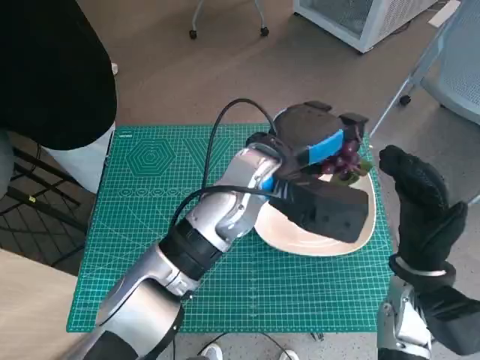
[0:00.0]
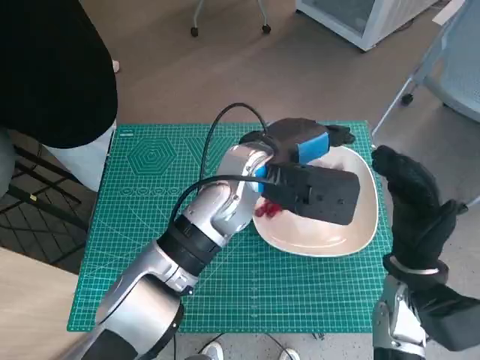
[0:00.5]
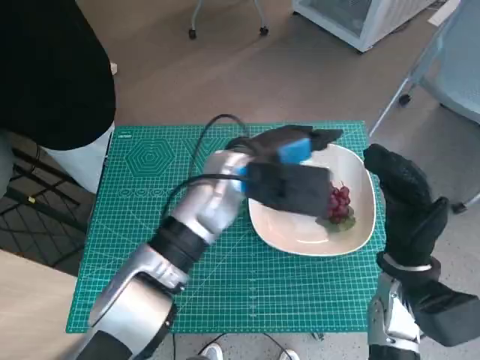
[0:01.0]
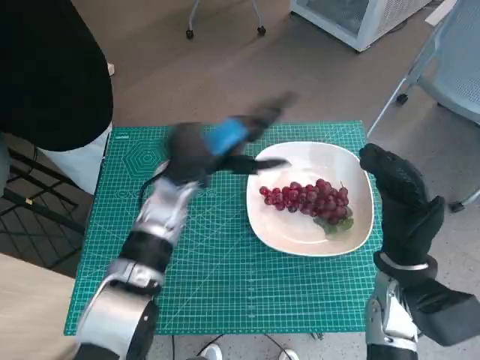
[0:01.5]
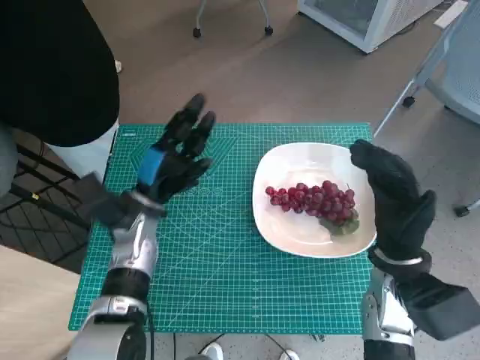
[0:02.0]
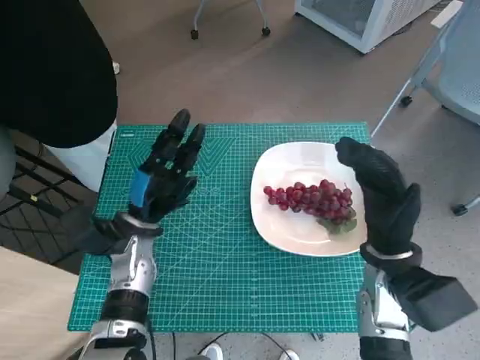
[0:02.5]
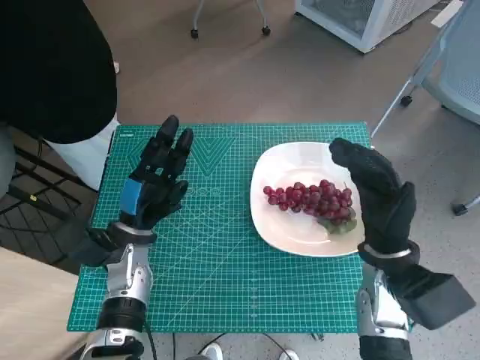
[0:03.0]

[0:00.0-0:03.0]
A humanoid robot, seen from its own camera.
Task of the whole recording: Pick up the grapes and put them on the plate.
0:00.0 to 0:01.5: The left hand heads to the left and downward, covering roughly 10 cm.
0:01.5 to 0:03.0: The left hand is displaced downward, to the left and backward by about 15 cm.
